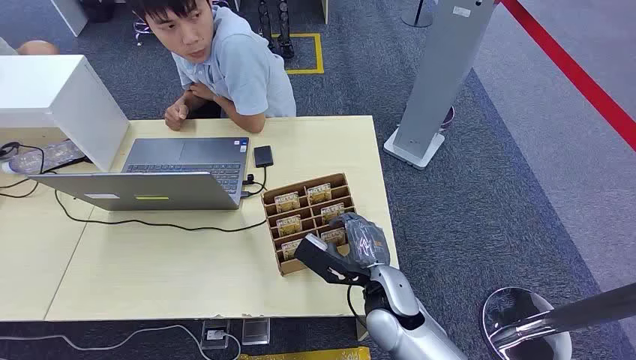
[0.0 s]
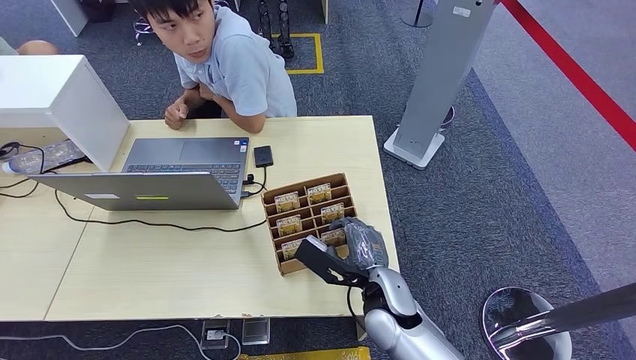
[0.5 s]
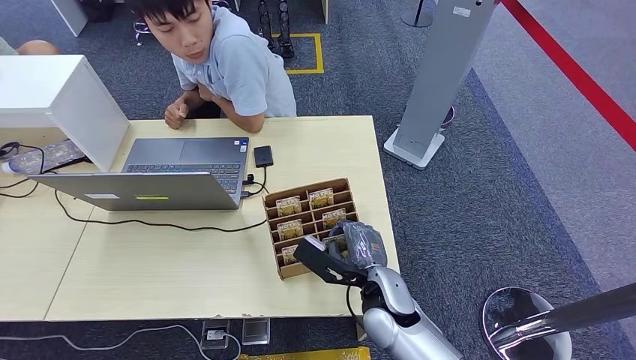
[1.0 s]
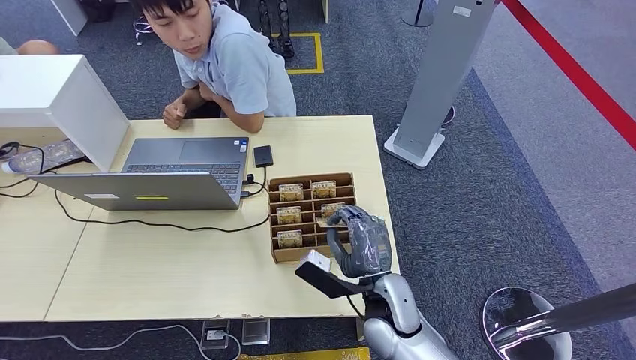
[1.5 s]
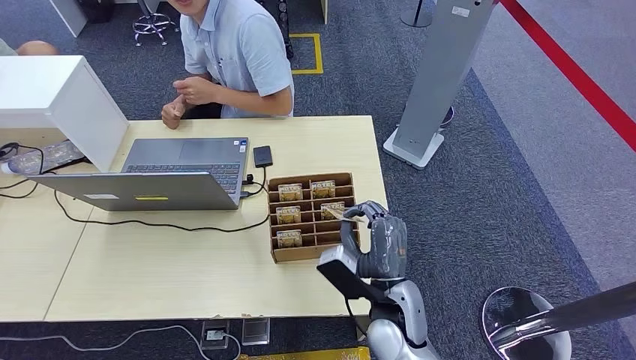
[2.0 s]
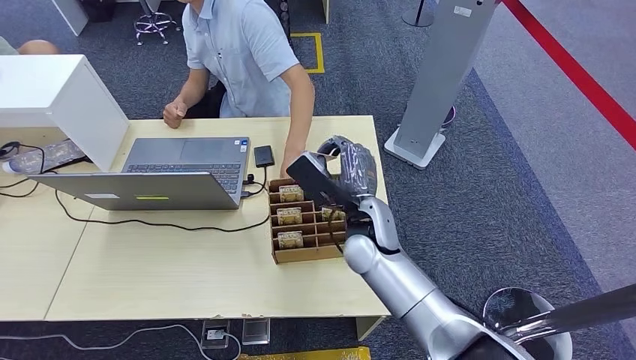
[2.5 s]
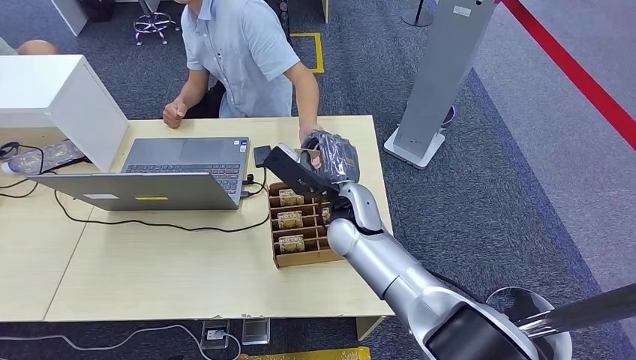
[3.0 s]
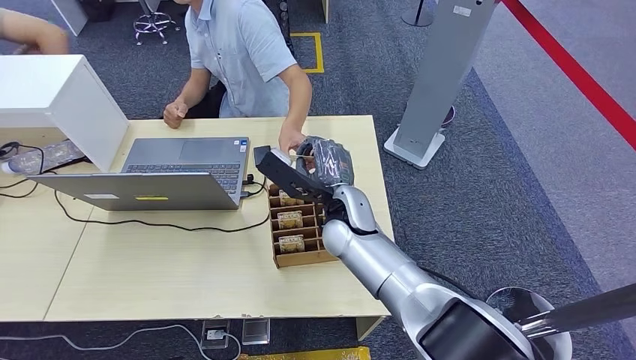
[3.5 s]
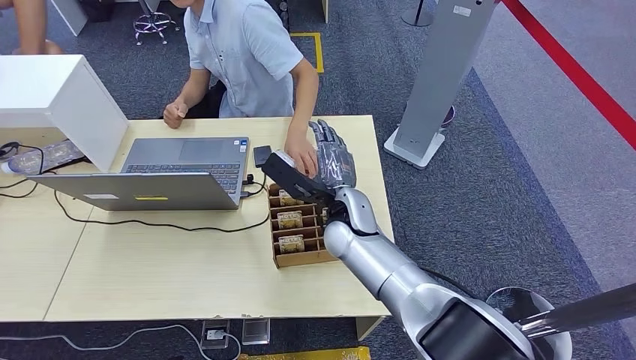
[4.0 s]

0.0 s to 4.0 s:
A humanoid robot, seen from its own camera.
Step, 0.0 to 1.5 s: Pick up the room card from the card holder.
Step, 3.0 to 4.0 s: Hand the room card to the target.
2.0 to 4.0 s: The right hand shifts about 15 cm forward.
